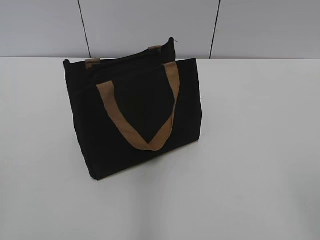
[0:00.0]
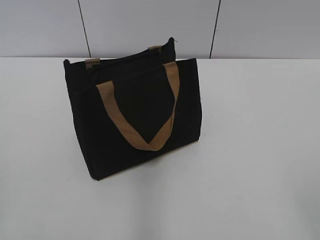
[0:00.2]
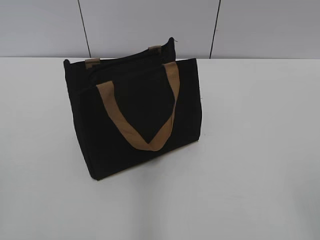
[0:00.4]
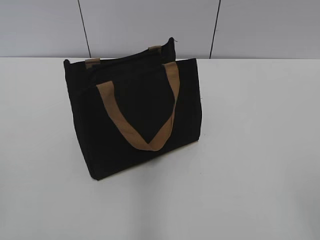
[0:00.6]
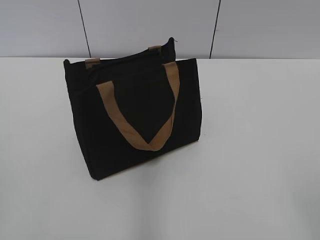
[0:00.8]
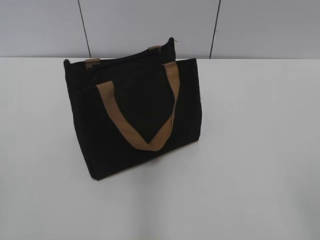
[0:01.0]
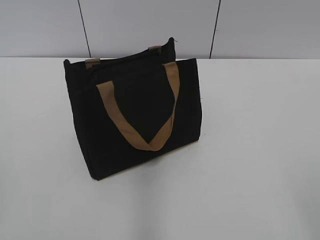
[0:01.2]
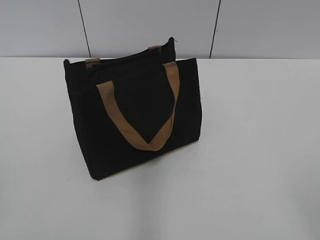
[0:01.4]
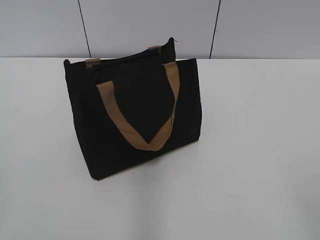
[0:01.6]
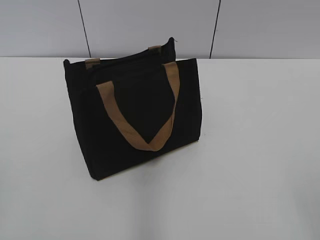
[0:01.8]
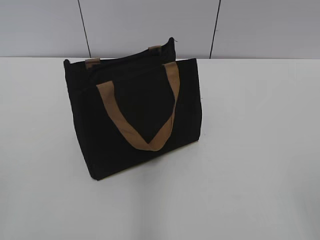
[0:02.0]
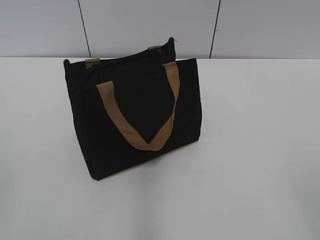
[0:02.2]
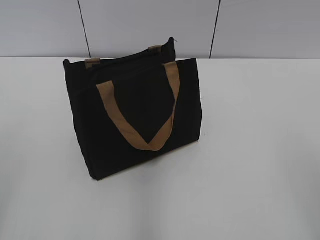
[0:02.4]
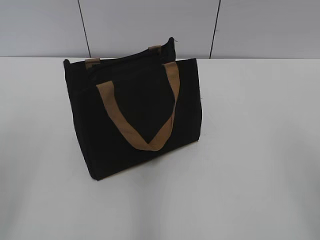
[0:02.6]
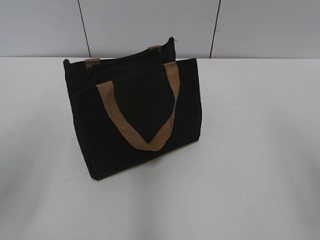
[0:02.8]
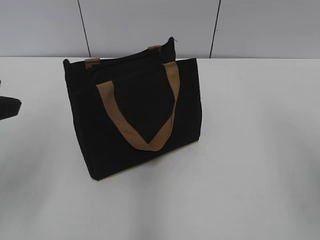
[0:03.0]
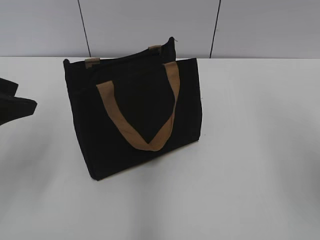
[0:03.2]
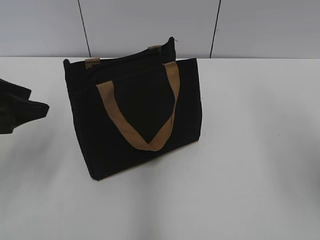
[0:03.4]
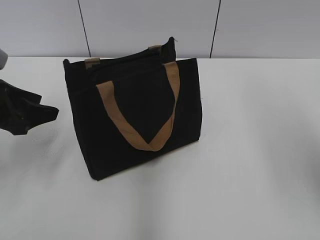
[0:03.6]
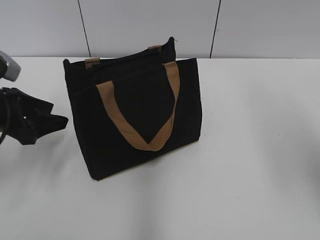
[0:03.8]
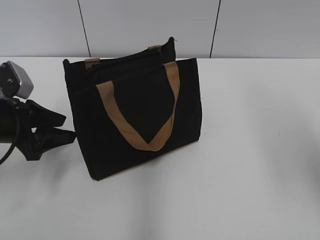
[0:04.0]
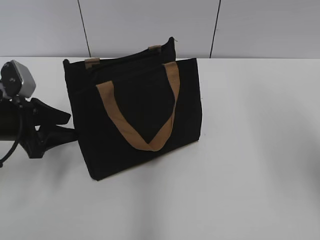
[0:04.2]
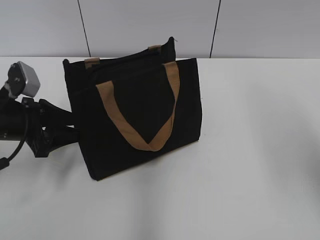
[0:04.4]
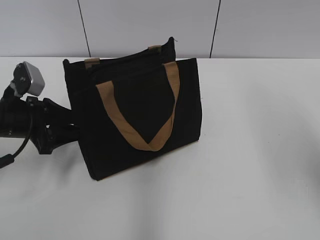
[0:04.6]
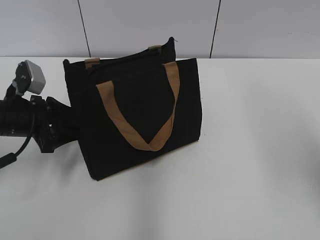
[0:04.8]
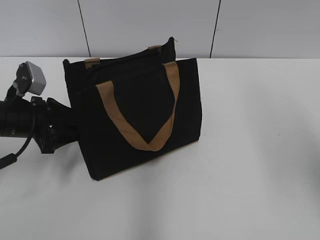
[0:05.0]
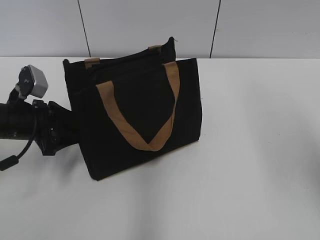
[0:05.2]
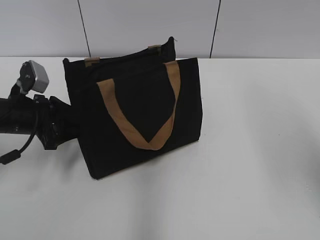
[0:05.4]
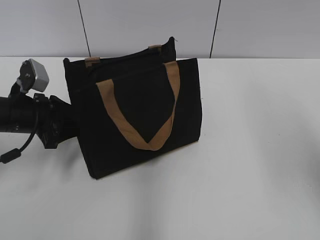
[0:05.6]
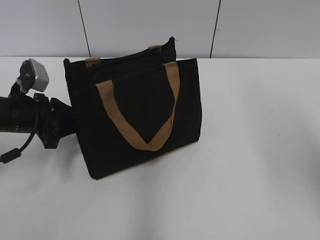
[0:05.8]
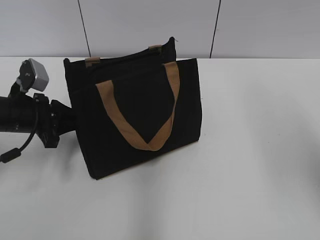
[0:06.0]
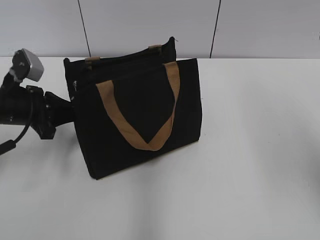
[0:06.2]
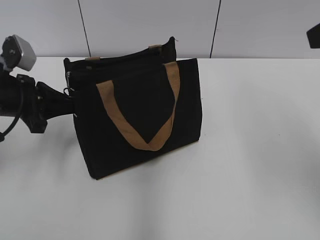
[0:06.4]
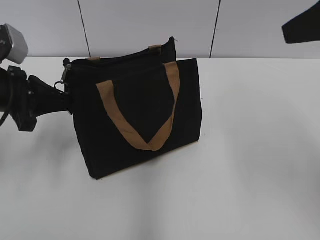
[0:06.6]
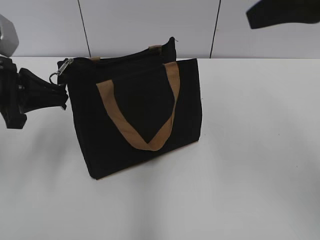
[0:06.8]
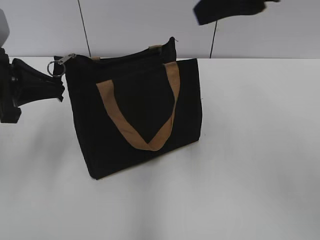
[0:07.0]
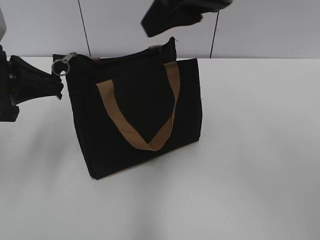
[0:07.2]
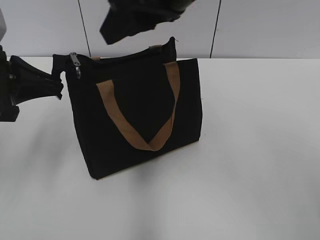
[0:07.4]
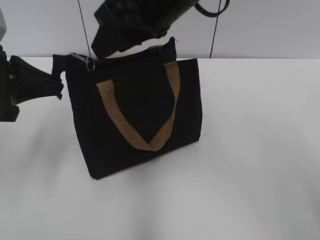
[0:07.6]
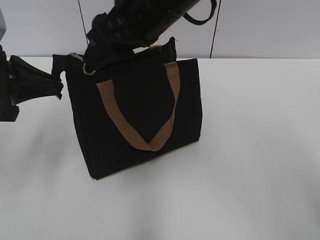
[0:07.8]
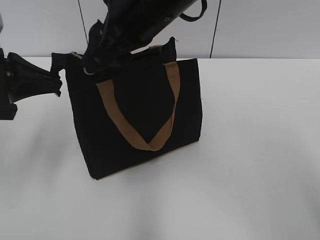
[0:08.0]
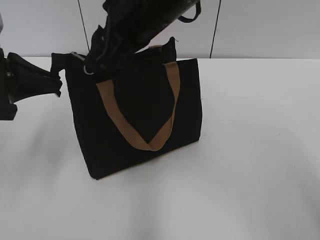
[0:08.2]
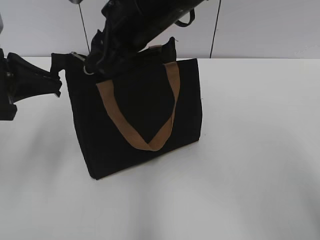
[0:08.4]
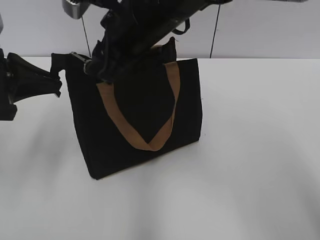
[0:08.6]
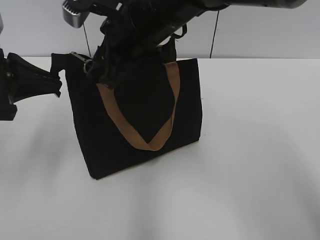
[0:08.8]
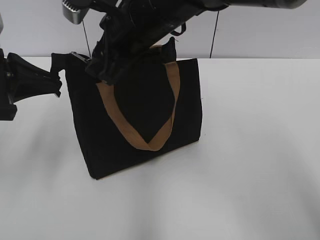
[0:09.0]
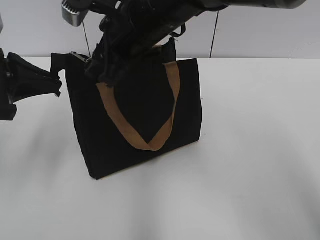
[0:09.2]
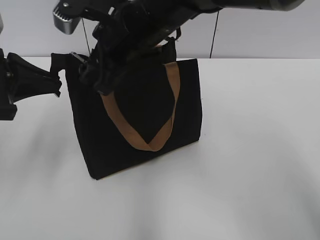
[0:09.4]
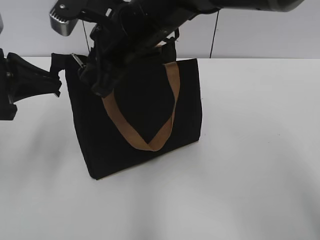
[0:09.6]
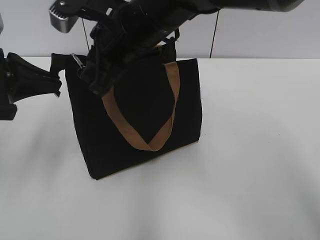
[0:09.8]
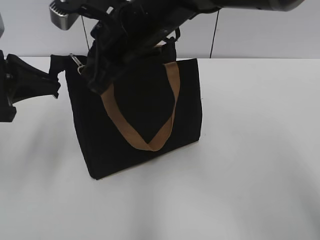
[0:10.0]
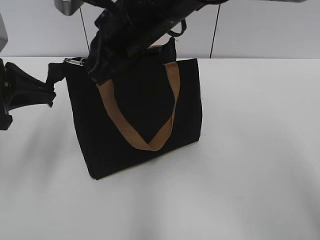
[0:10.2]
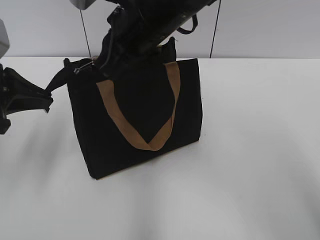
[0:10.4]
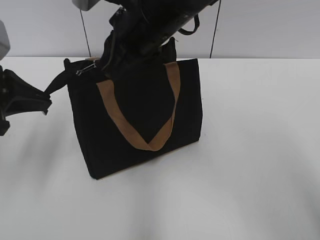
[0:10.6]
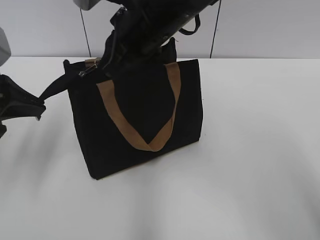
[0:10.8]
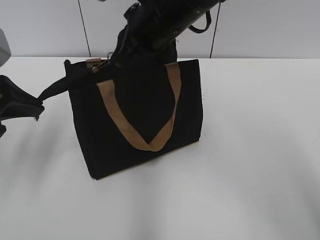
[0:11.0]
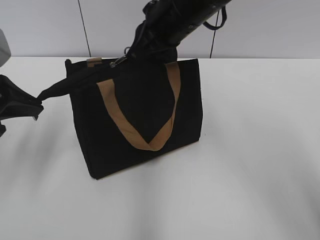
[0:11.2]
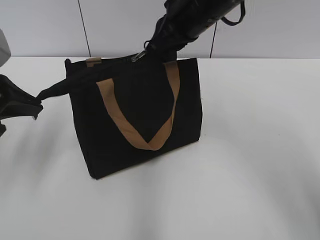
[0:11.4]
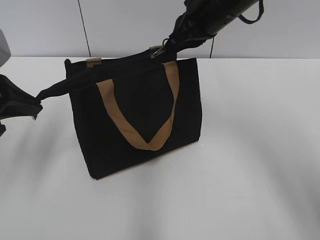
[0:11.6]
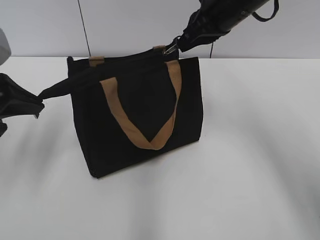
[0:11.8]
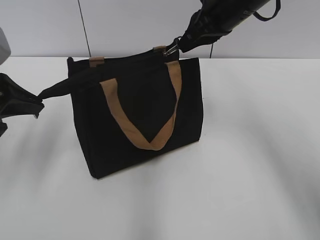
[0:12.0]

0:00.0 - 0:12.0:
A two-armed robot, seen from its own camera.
0:01.6 - 0:03.0: The left gripper moves forward, roughly 20 cm.
0:03.0 - 0:04.4: The left gripper is displaced downward and forward by roughly 20 cm.
0:04.4 - 0:06.0: The left gripper closes.
0:06.0 - 0:07.6: The left gripper heads upward, covering some 10 cm, while the right gripper goes approximately 25 cm to the left.
0:07.6 - 0:09.0: The right gripper shifts approximately 5 cm downward.
0:09.0 - 0:10.4: The right gripper closes up.
0:10.4 - 0:12.0: The right gripper is displaced to the right and forward by some 15 cm.

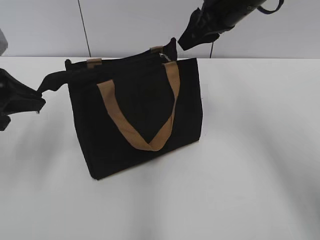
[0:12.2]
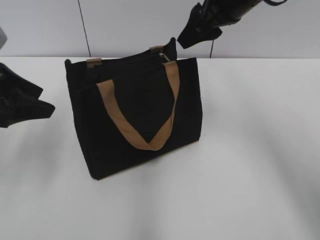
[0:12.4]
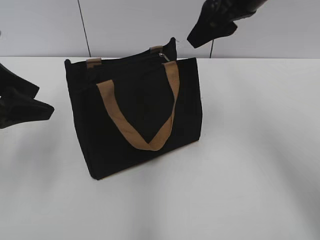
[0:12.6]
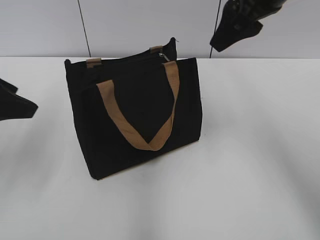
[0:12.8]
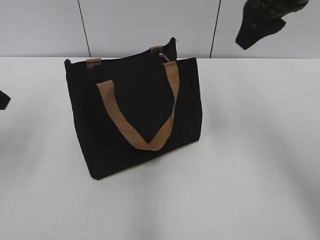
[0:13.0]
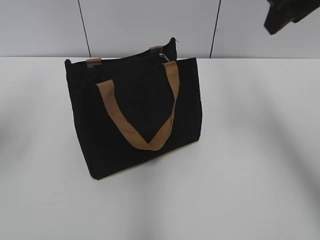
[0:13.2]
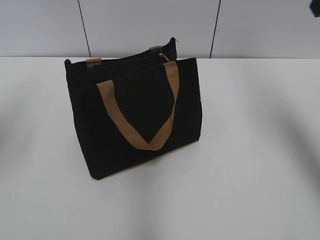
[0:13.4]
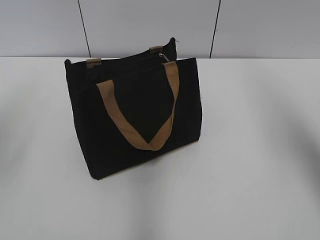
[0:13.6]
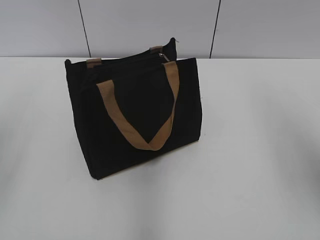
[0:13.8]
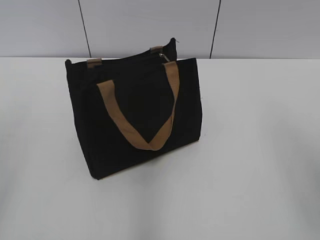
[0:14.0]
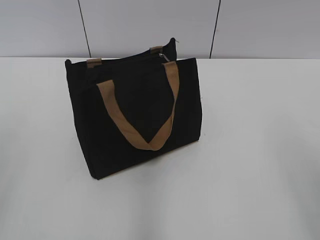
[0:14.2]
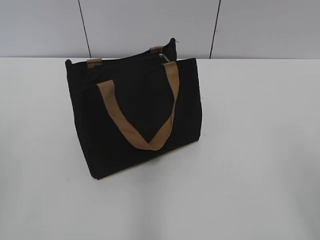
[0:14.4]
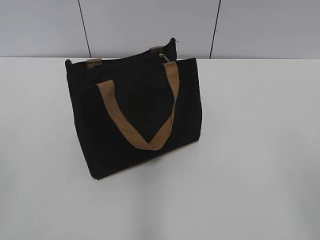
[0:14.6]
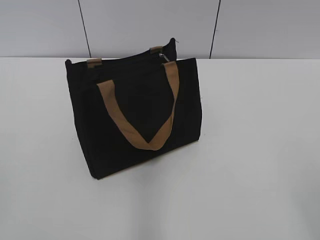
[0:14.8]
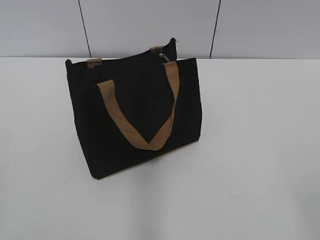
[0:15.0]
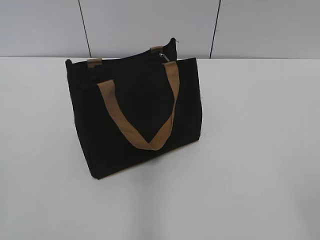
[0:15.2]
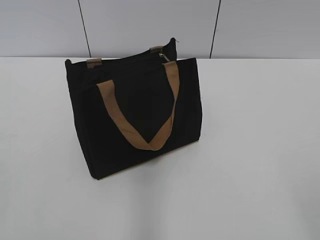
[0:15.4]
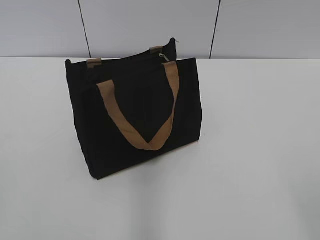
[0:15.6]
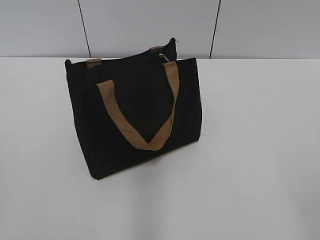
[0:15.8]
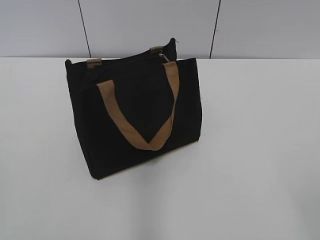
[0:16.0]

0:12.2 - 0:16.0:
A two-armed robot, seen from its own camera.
0:12.2 - 0:13.4: The right gripper shifts roughly 15 cm to the right, upward and backward, and opens up. The left gripper goes approximately 10 cm upward, and opens its fingers.
0:13.4 - 0:14.8: Both grippers travel together backward, approximately 30 cm.

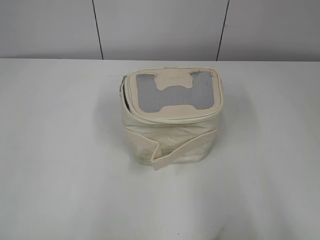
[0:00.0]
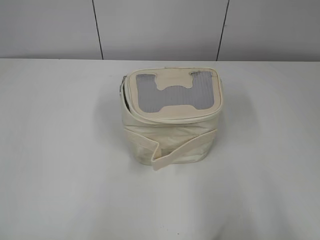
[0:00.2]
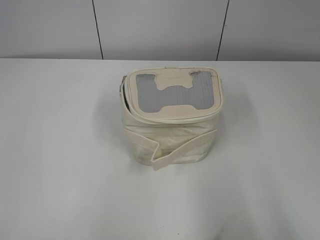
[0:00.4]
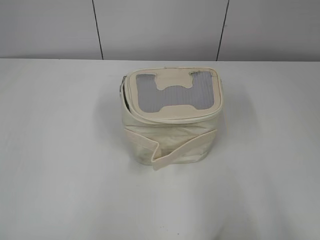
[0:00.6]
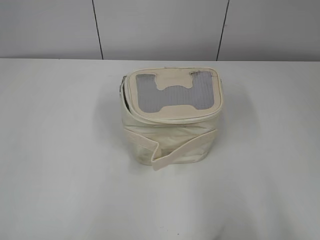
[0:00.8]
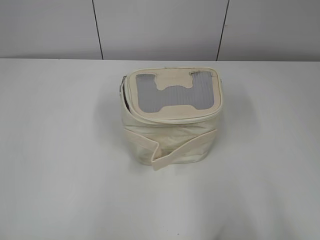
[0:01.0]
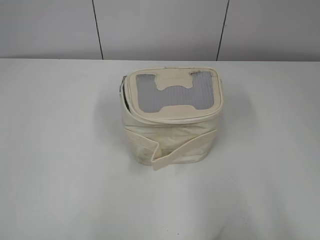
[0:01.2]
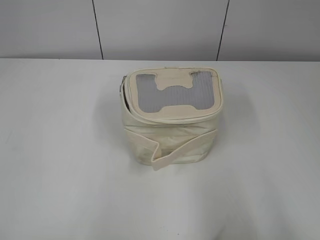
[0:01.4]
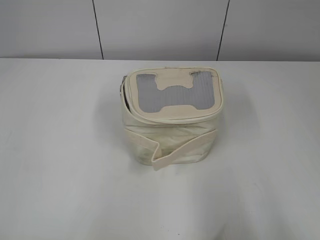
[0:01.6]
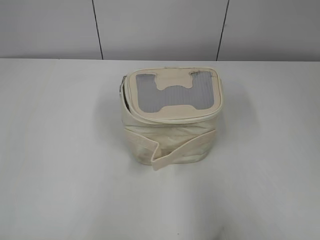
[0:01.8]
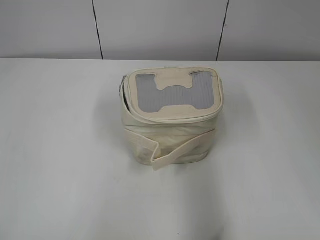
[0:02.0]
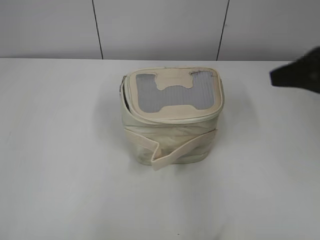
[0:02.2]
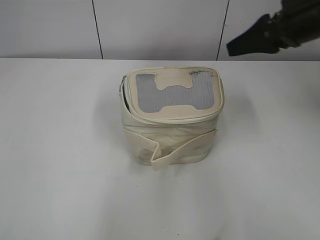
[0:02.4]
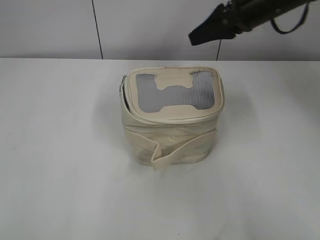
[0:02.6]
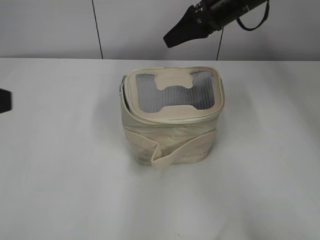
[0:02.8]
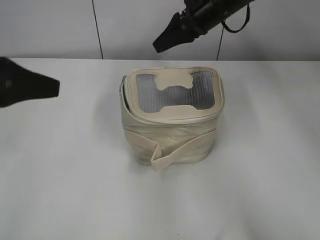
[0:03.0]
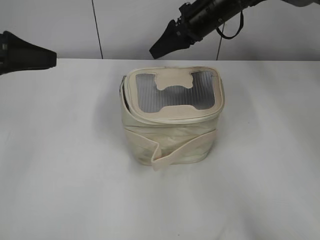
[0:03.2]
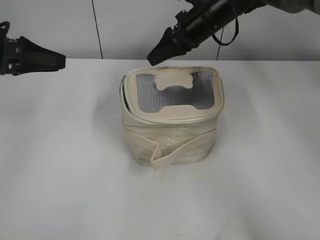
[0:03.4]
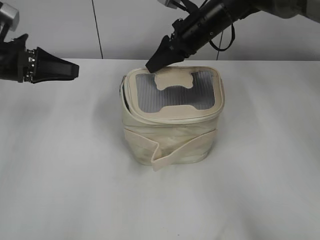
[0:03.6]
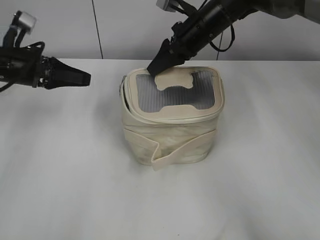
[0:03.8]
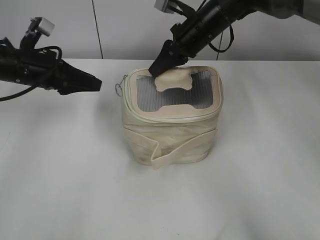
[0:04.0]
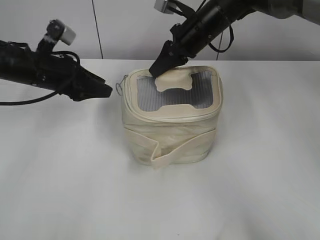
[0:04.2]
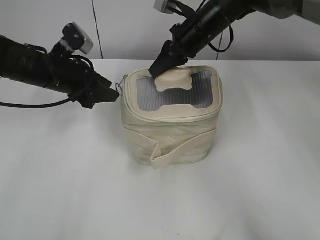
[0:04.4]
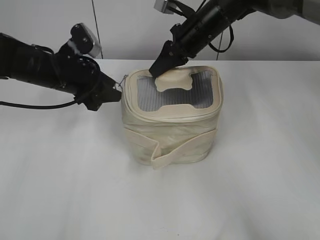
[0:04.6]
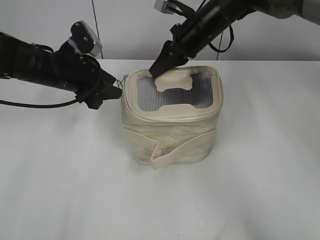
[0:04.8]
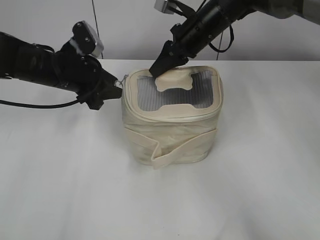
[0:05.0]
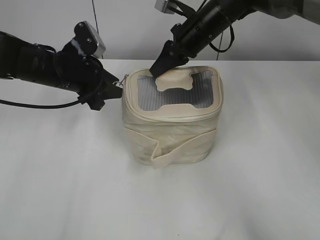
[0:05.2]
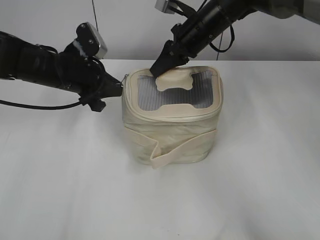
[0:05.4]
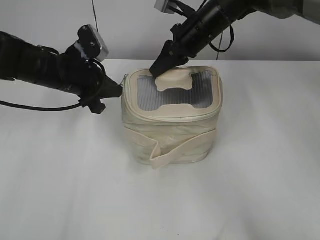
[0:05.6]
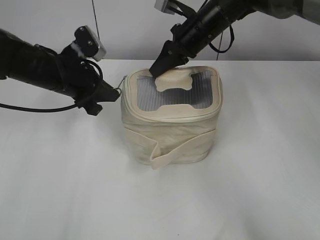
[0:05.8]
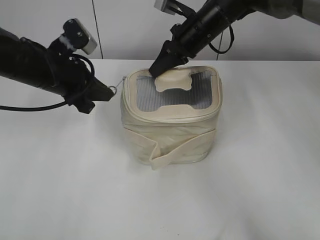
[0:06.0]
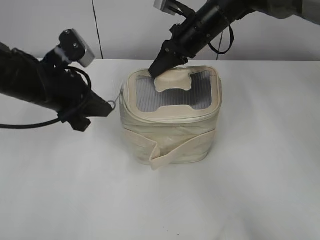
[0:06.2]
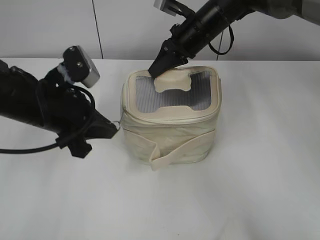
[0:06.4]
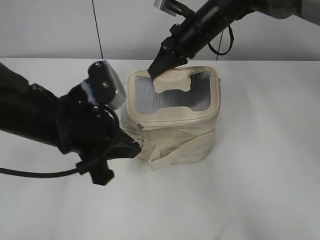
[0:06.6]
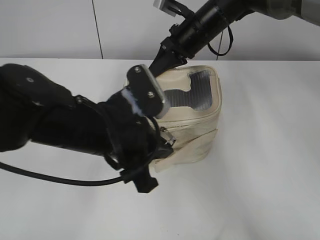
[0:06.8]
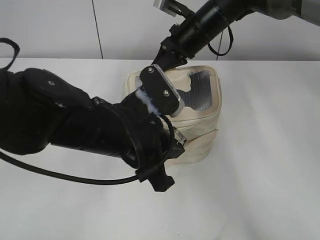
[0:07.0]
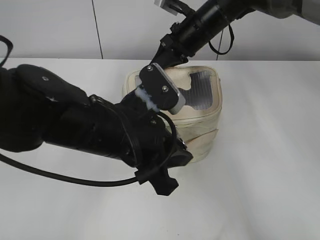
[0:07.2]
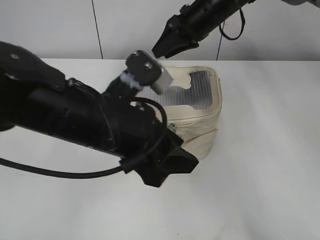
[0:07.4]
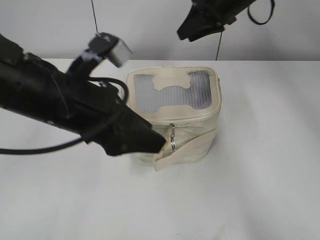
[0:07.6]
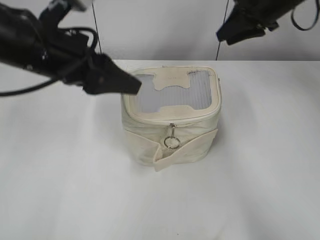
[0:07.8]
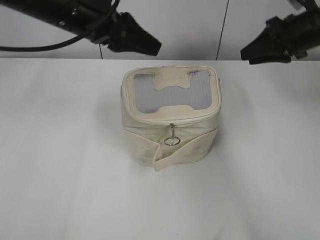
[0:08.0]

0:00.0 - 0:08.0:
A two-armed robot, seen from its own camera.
Step, 0:00.0 - 0:03.8: Grasp the bag with right gripper.
Step, 0:04.2 - 0:07.4: Pull the zipper with left gripper.
0:01.6 - 0:03.2: The right gripper shifts approximately 50 cm forward and to the left, while the left gripper is displaced forward by roughly 25 cm.
0:03.2 - 0:04.8: The left gripper moves forward, downward and to the right, approximately 15 cm. Meanwhile the right gripper closes up.
0:04.8 - 0:06.4: The left gripper goes about 10 cm backward, and closes up.
0:06.4 - 0:08.0: The right gripper heads to the right, covering some 20 cm, and opens its fingers, while the left gripper travels upward and forward by about 10 cm, and opens up.
